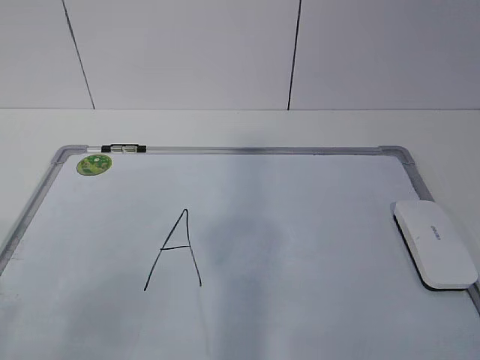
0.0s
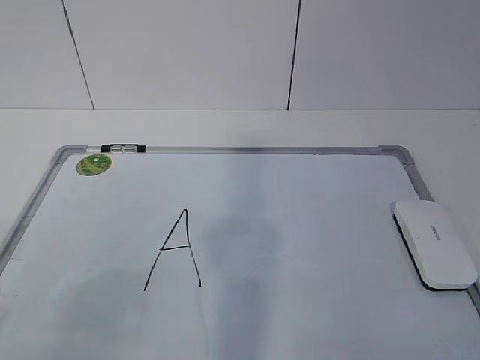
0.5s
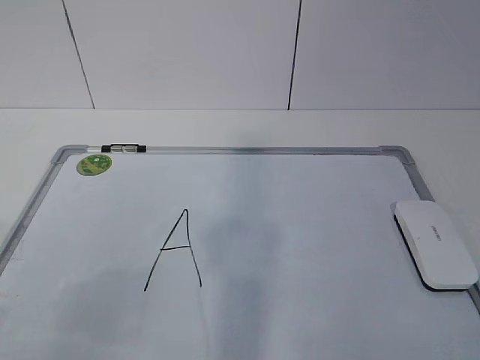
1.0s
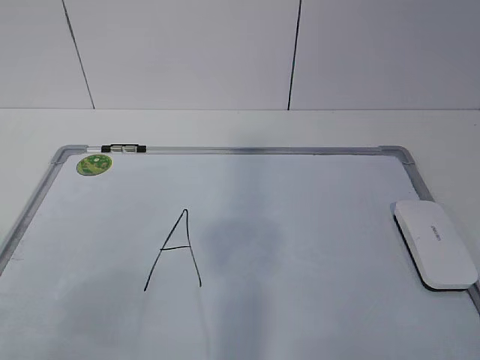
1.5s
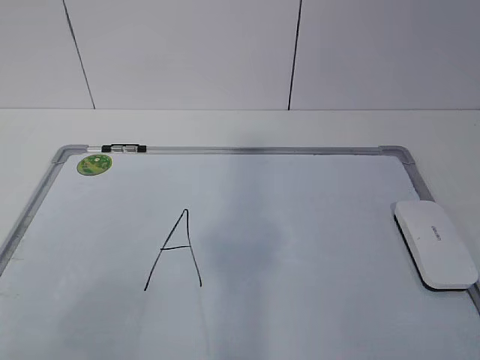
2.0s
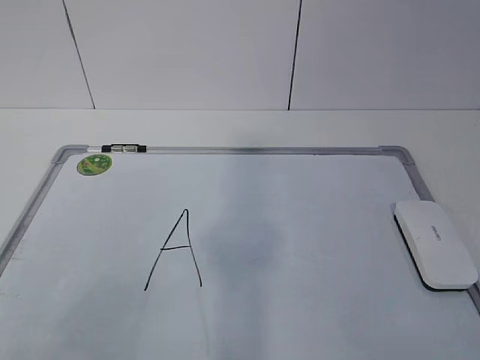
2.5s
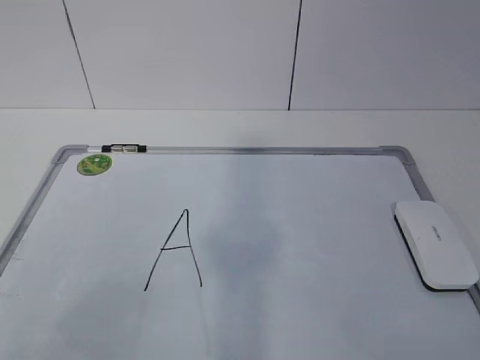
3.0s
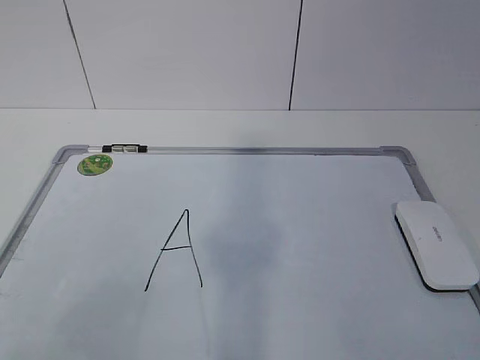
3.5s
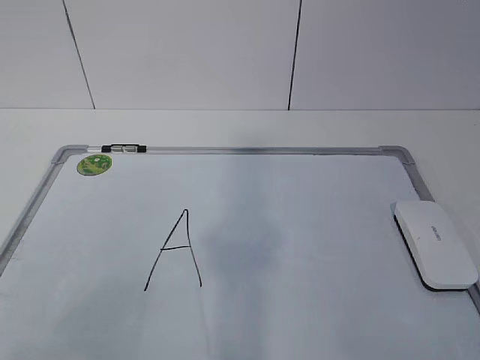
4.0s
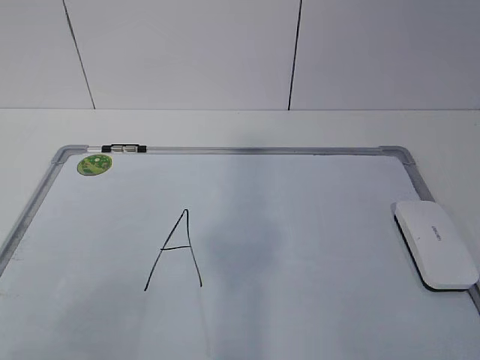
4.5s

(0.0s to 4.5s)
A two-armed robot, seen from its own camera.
Task of the whole recording: pick up the eraser on the blackboard and erase the letter "a".
2.0s - 4.5s: The two grippers keep their place.

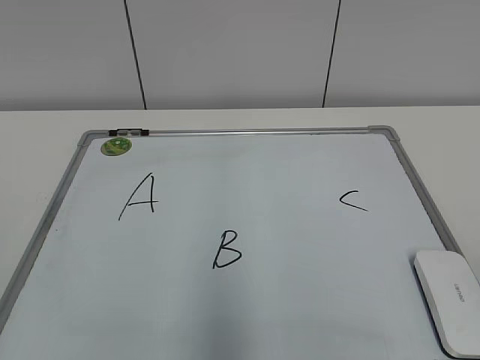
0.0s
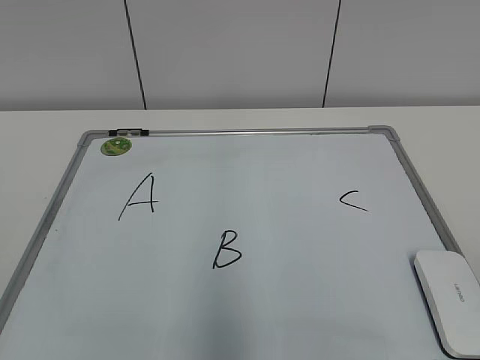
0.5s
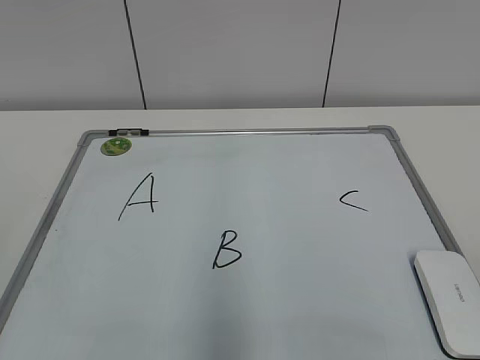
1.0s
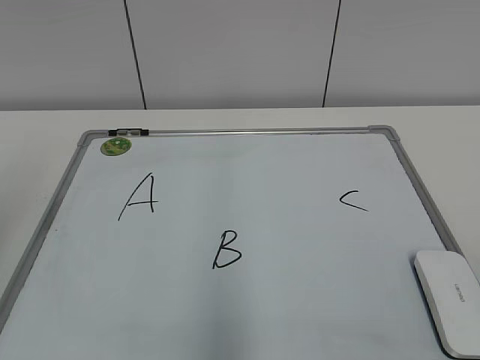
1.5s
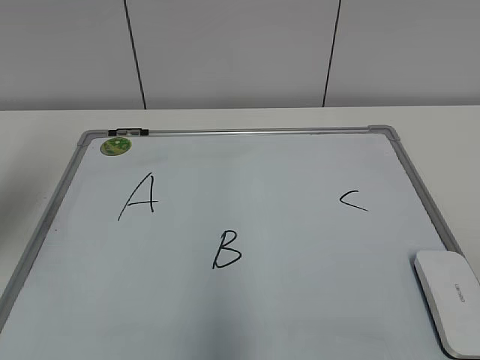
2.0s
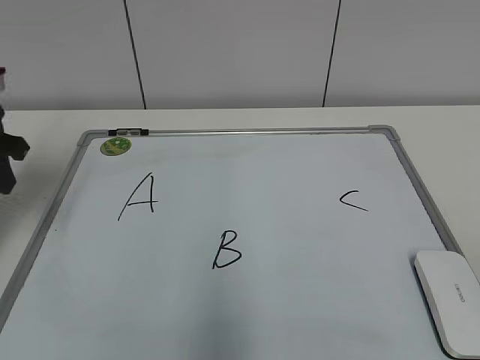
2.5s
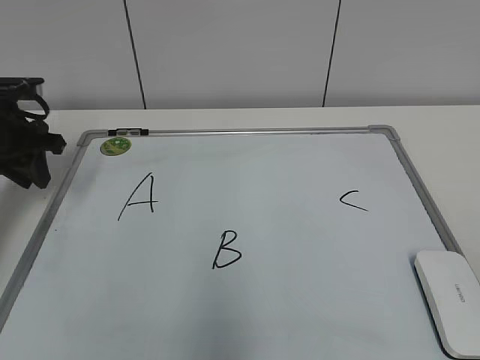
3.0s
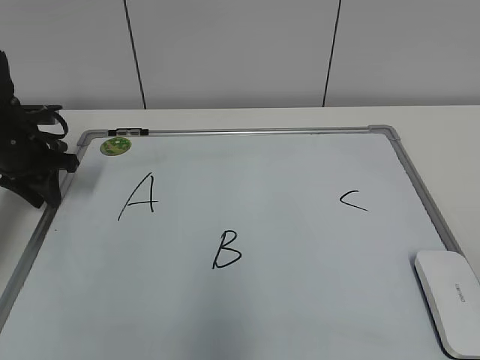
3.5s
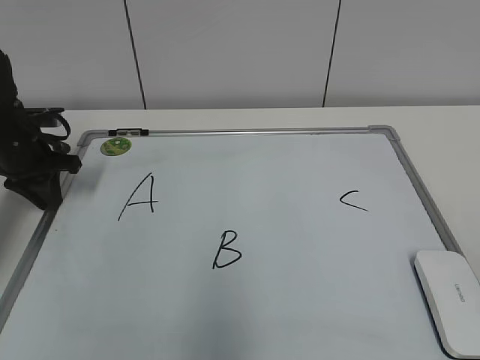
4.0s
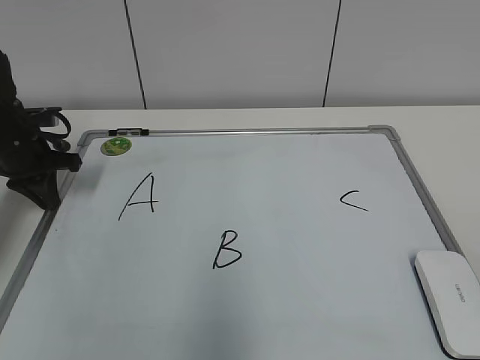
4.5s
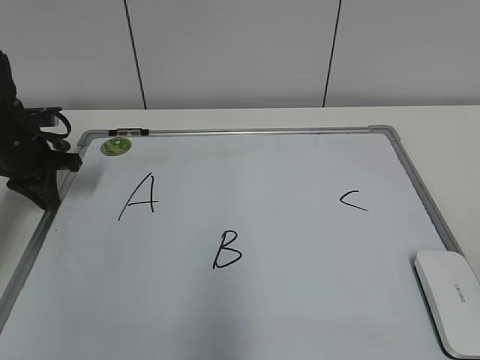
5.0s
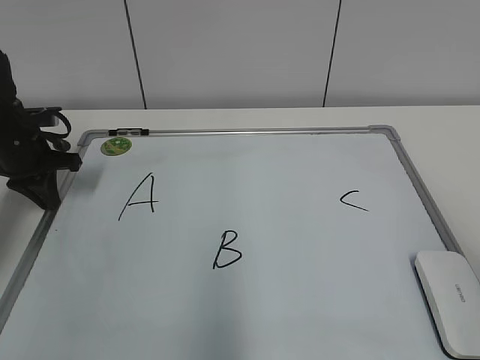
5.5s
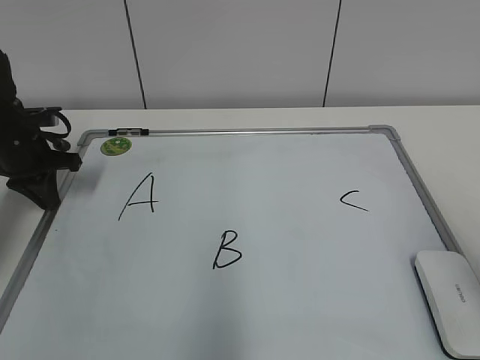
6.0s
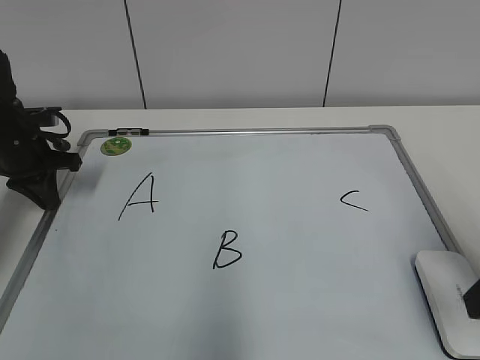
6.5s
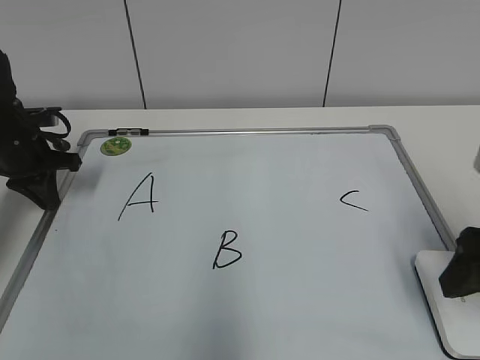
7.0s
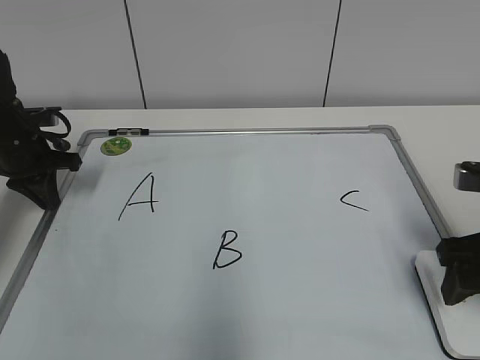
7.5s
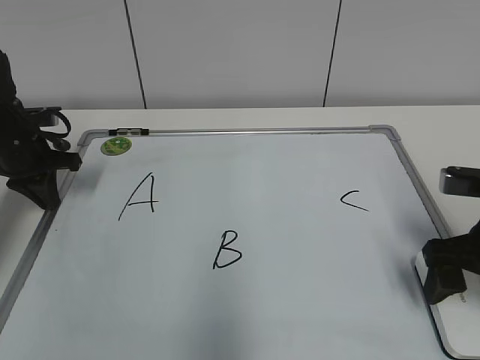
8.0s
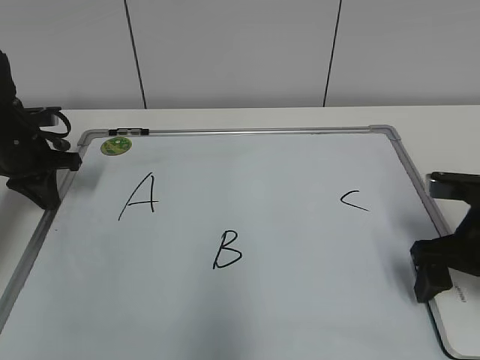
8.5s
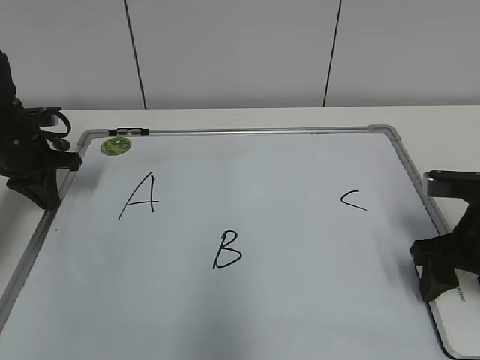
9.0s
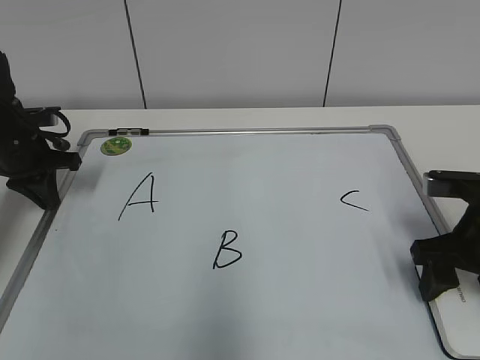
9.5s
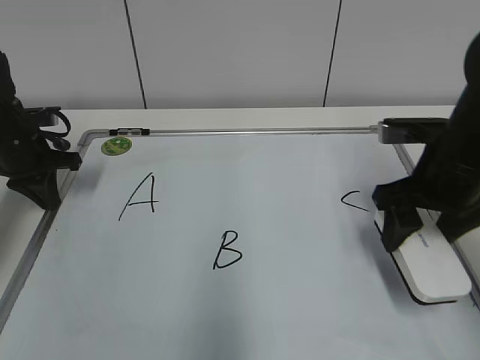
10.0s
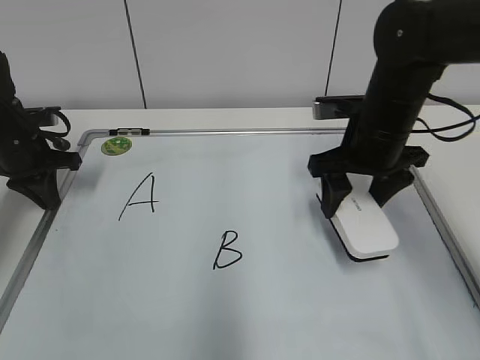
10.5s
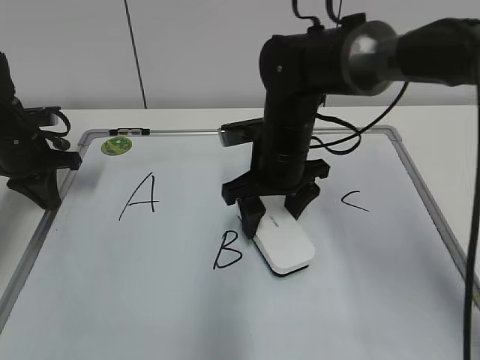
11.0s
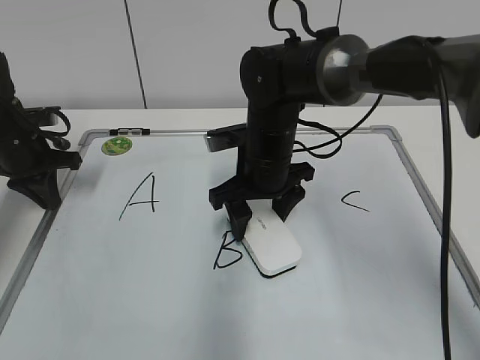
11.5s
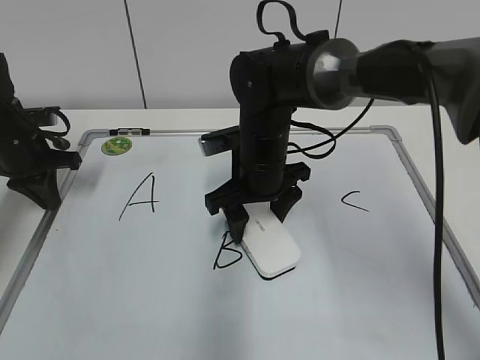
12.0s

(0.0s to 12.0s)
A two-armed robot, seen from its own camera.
Task of the whole recording: pick up the eraser on the blackboard and erase the letter "B".
Step, 0.0s - 4.0s: Hold the drawing board steady with your left hand.
Step, 4.5s - 9.0s: Grab the eraser with your right hand.
2.0s - 4.0s: The left gripper shifts some 25 cm forward and downward.
4.0s - 6.0s: The right gripper moves forward, roughly 10 cm.
6.0s - 8.0s: The right gripper goes some 15 cm forward and downward, and opens.
8.0s - 10.0s: The right gripper moves forward, approximately 5 cm, and closes.
10.0s - 12.0s: The right gripper travels to the left by approximately 20 cm.

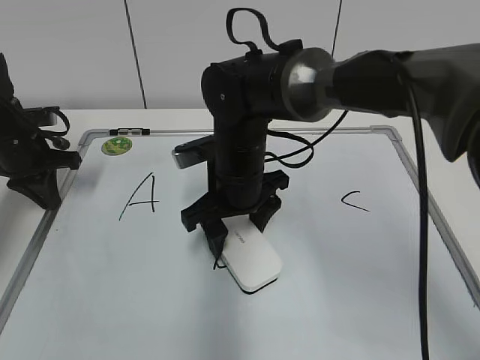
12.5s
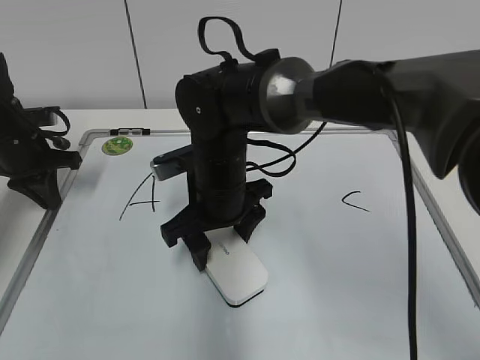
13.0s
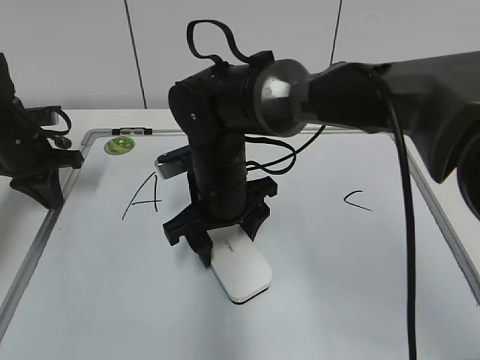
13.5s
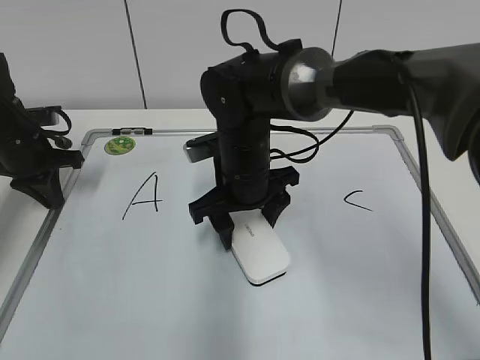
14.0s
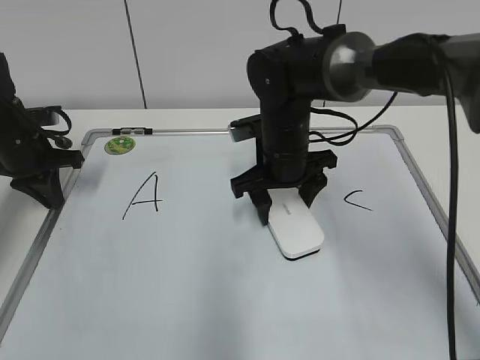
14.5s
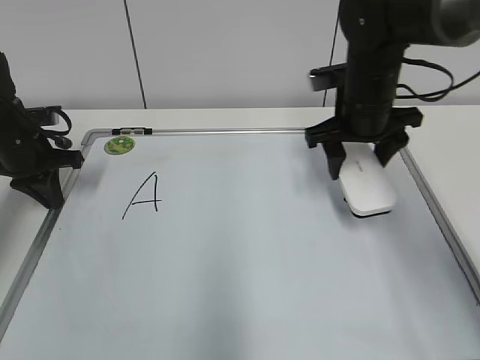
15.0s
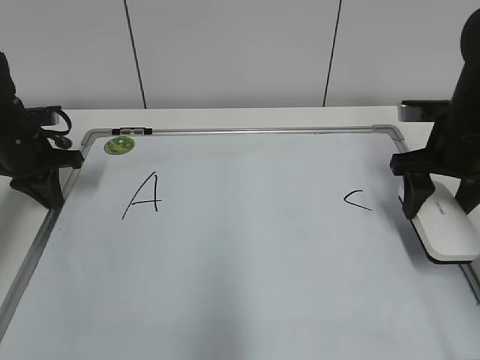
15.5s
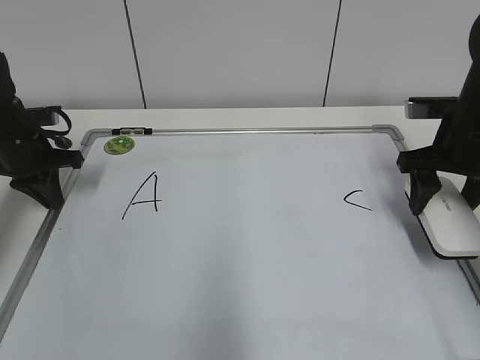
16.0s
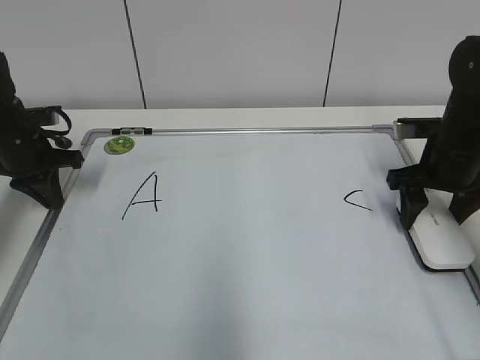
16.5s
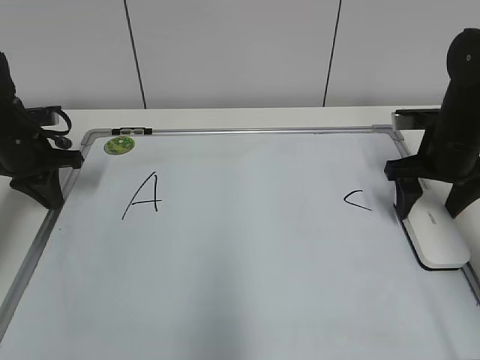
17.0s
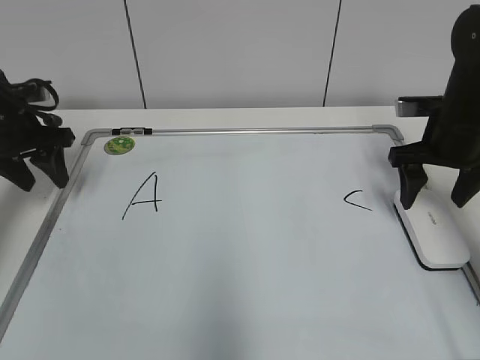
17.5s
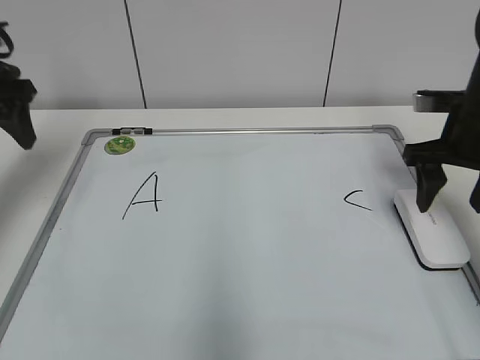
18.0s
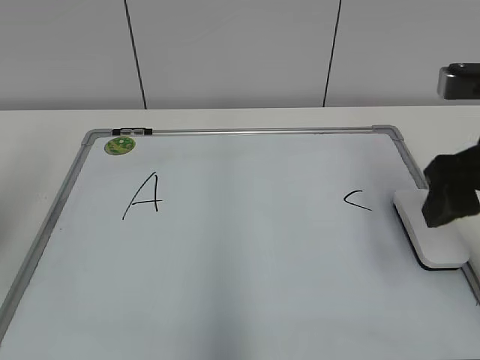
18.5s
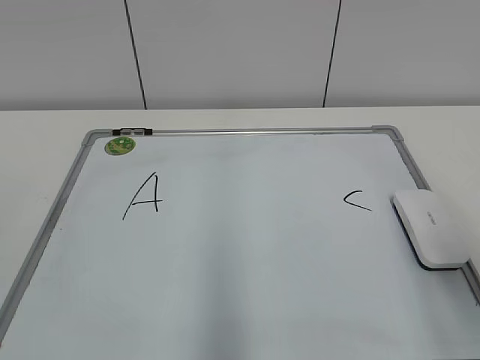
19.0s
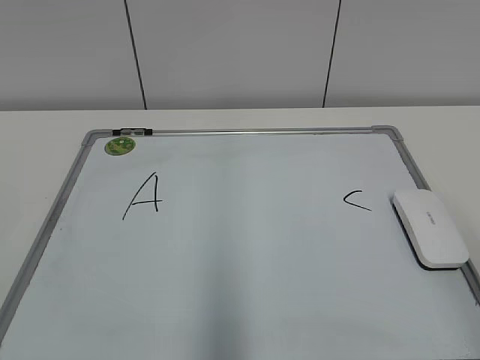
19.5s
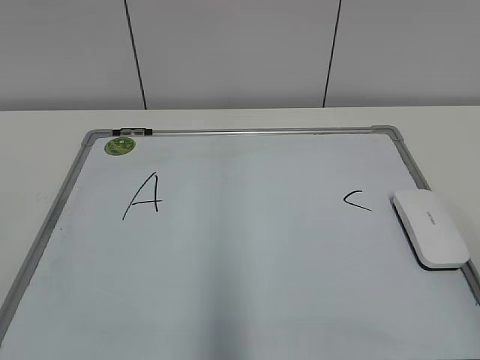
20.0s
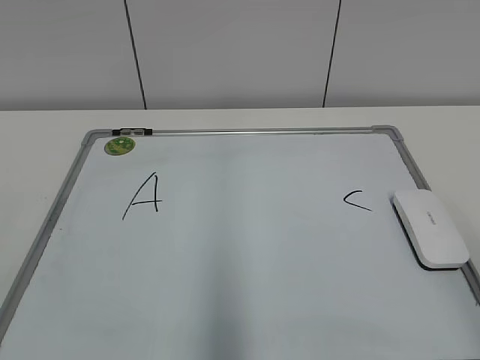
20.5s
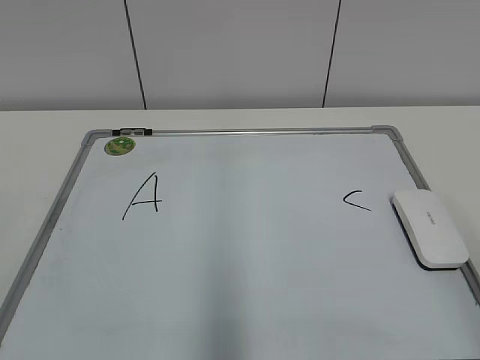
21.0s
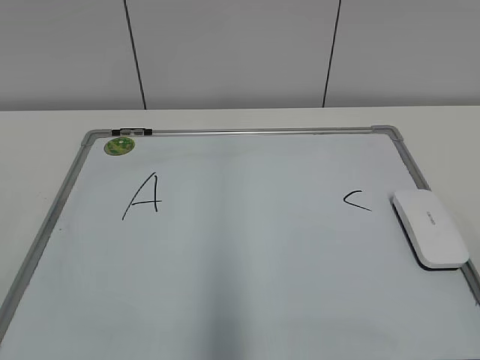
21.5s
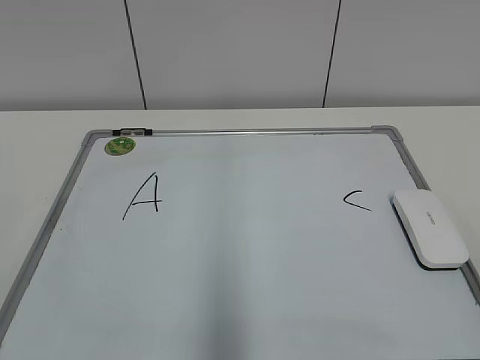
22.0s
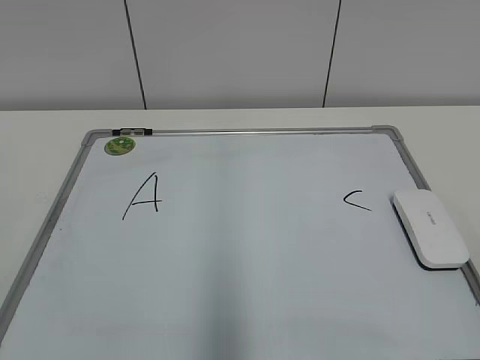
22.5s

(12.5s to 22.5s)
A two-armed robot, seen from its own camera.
Task of the whole recording: pick up the eraser on the blackboard and erase the letter "B".
Step, 12.5s - 14.5s: Erase the letter B with your right hand.
Step, 15.0s - 17.0s: Put down the eraser with your right hand.
12.5s - 14.5s: The right gripper goes about 5 cm to the right.
14.5s - 16.5s: The right gripper shifts roughly 20 cm to the right.
16.5s - 18.5s: The left gripper is displaced backward and upward by some 30 cm, and opens up. Meanwhile the right gripper travels backward and upward by approximately 15 cm, and opens up.
18.5s - 20.5s: The right gripper travels backward by approximately 20 cm.
